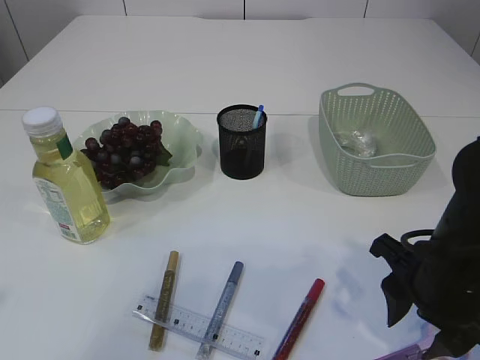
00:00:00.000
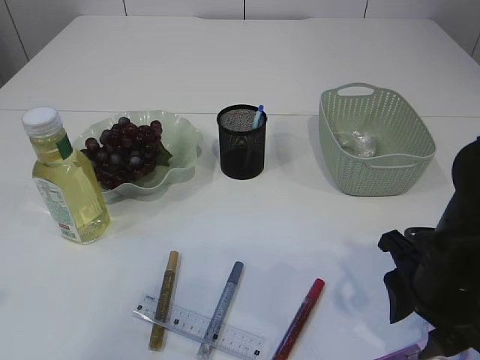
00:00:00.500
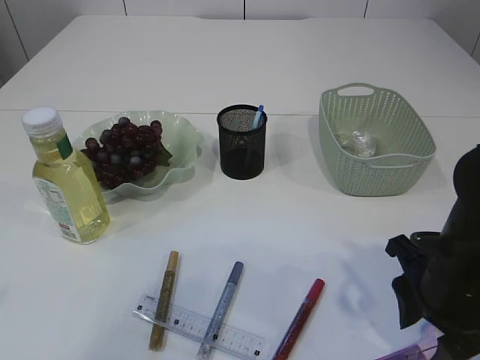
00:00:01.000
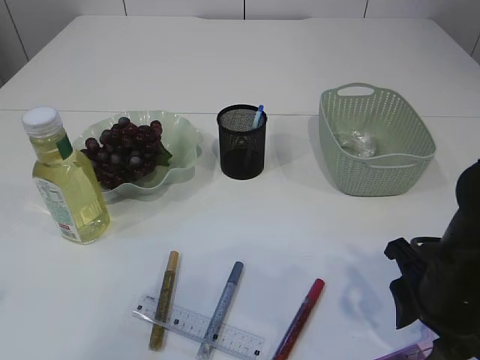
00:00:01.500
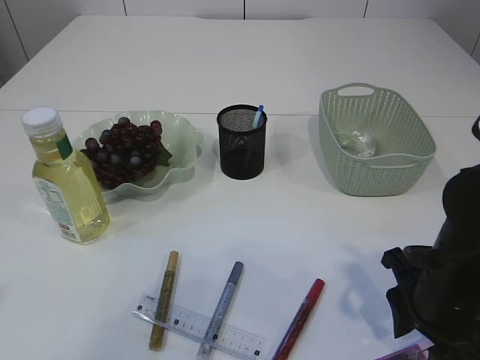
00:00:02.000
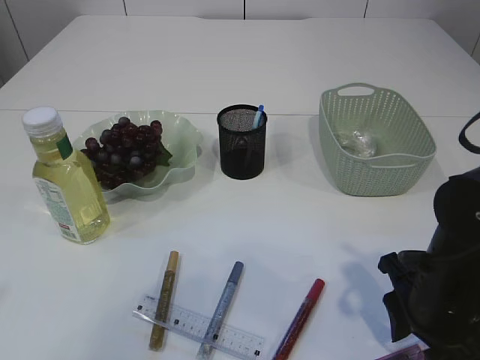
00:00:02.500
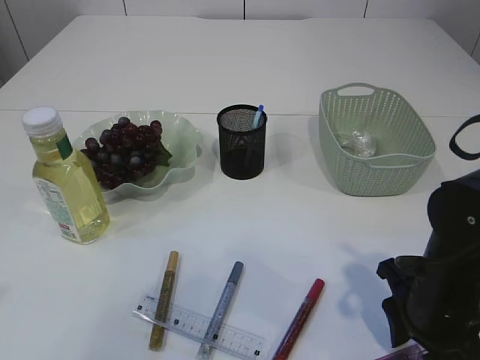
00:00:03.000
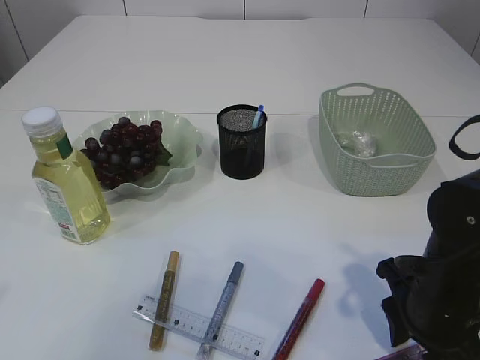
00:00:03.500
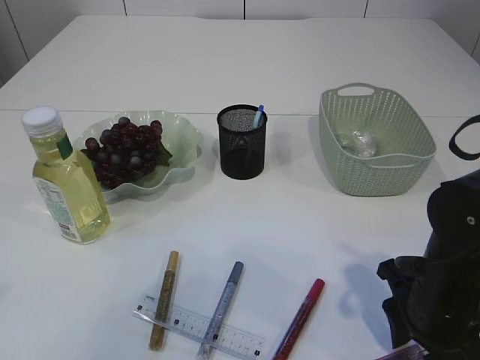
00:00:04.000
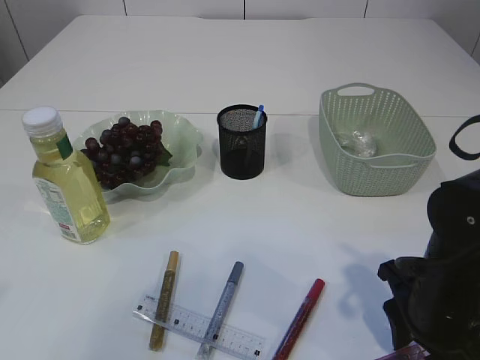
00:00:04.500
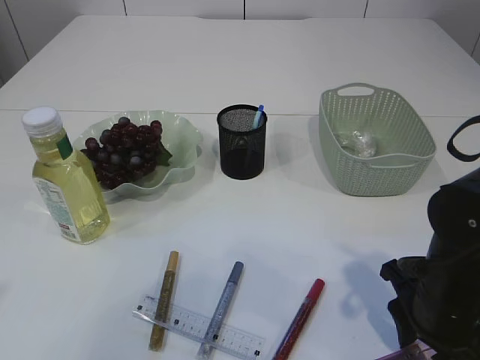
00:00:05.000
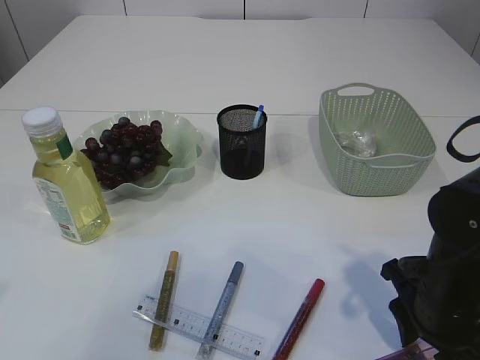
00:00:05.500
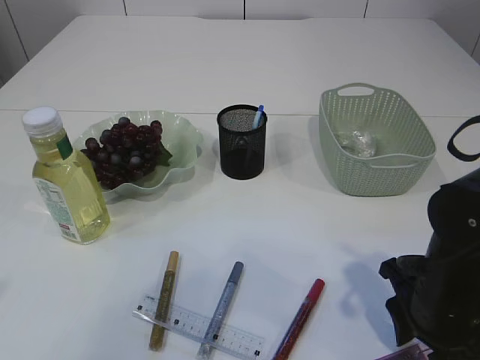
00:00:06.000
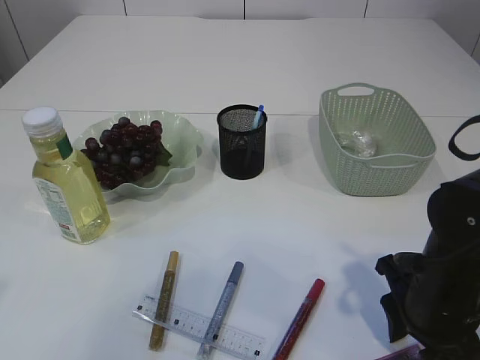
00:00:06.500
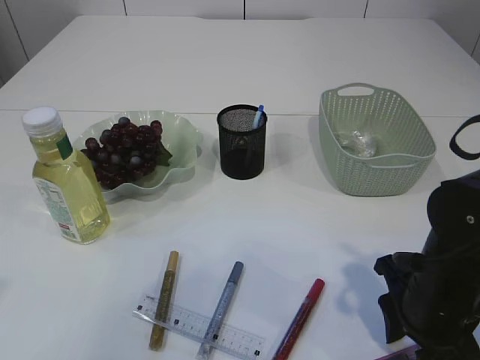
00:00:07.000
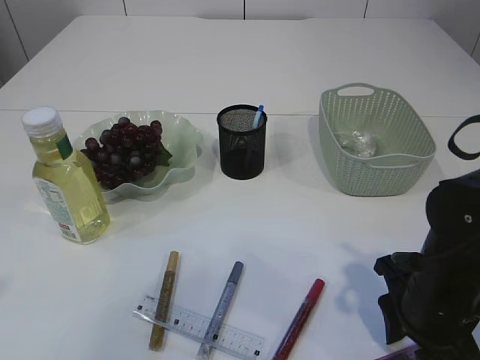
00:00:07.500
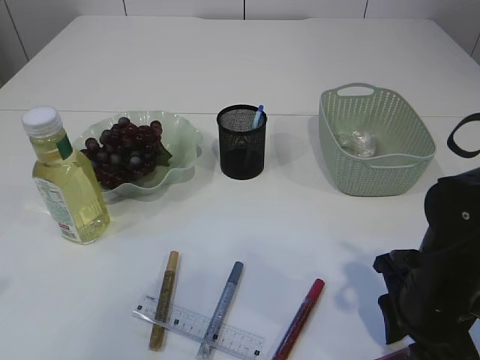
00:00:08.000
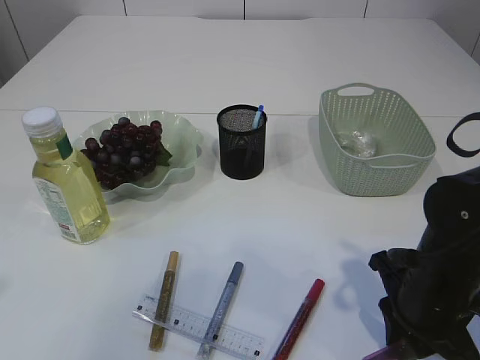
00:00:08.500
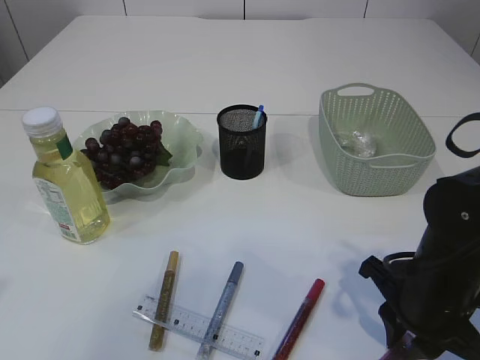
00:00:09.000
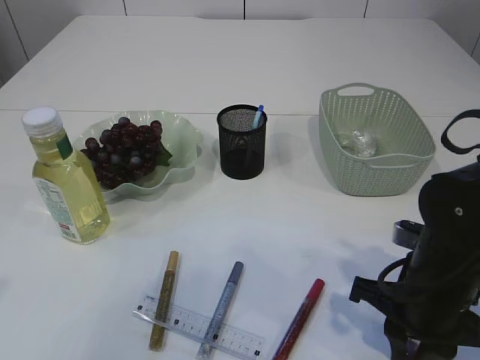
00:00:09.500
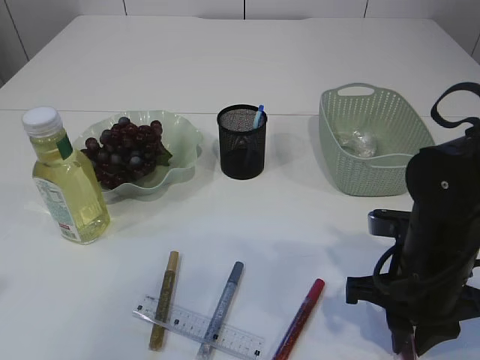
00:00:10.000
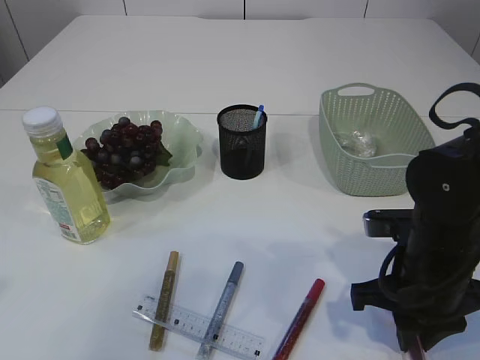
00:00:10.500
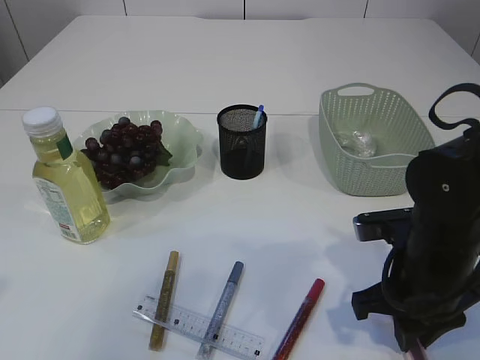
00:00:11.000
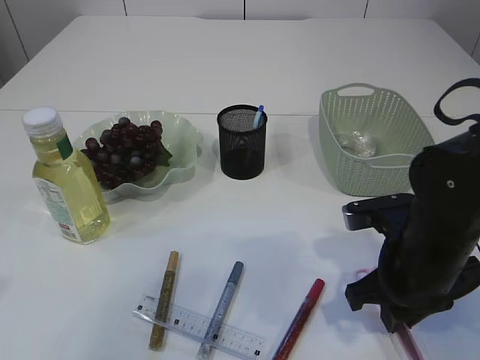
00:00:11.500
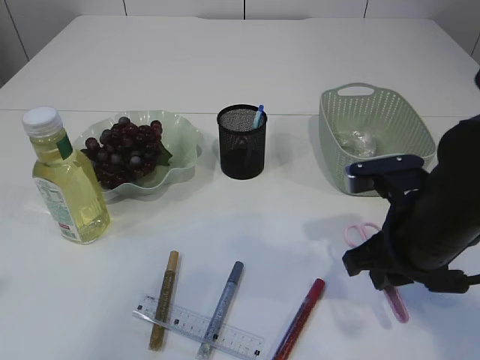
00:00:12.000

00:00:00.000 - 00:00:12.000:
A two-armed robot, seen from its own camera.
00:00:00.000 - 00:00:04.000: The grippers move only a little.
00:00:06.000 - 00:00:08.000: The grippers make only small movements.

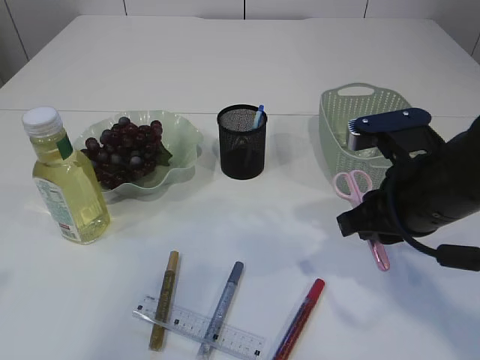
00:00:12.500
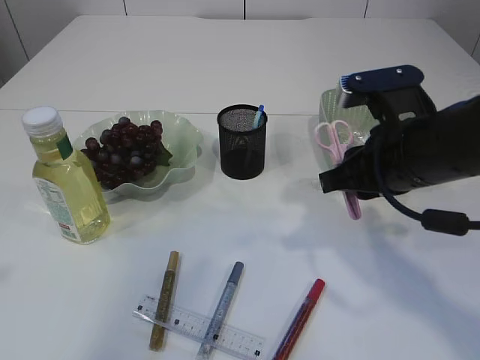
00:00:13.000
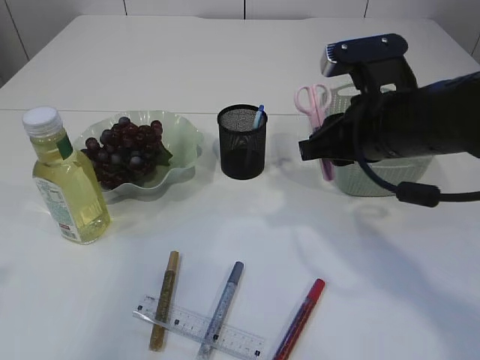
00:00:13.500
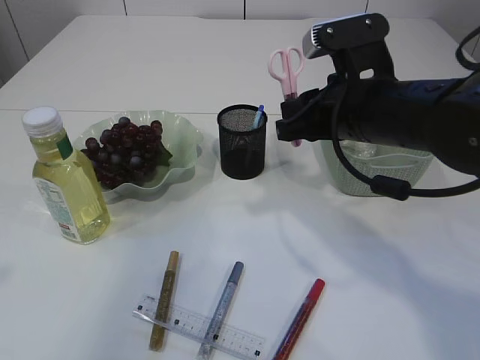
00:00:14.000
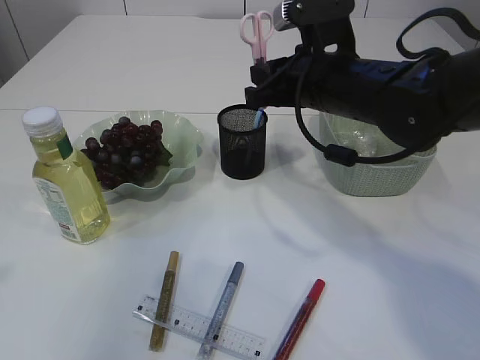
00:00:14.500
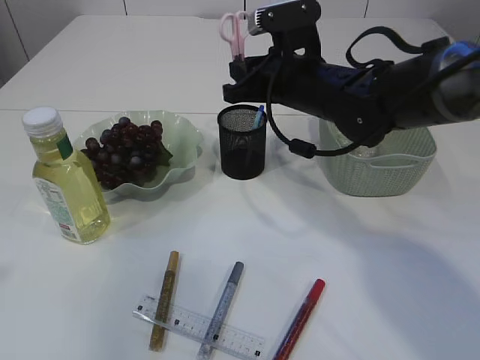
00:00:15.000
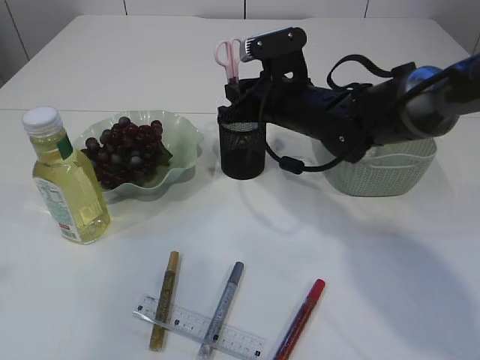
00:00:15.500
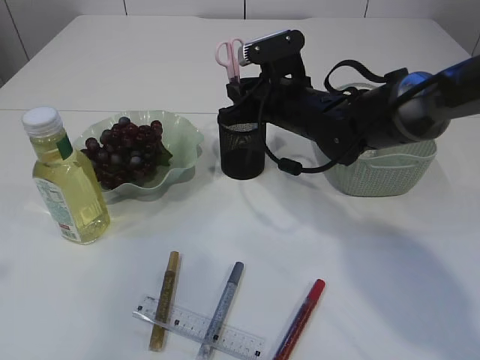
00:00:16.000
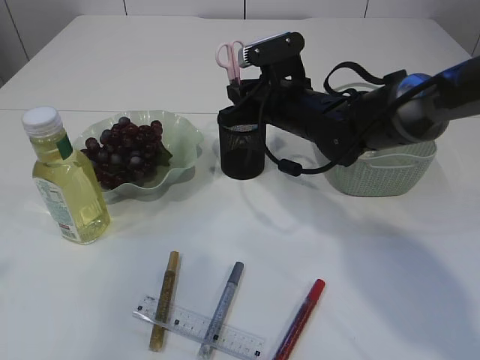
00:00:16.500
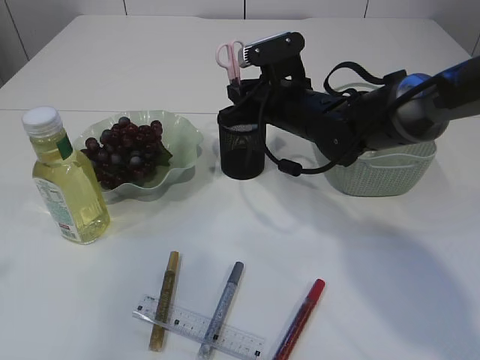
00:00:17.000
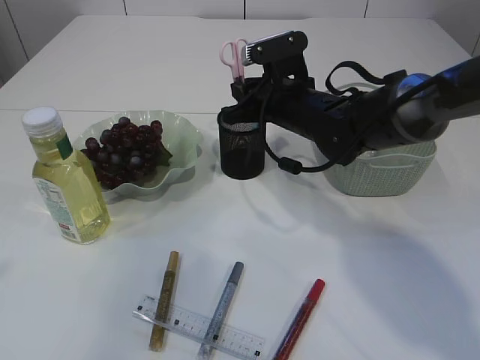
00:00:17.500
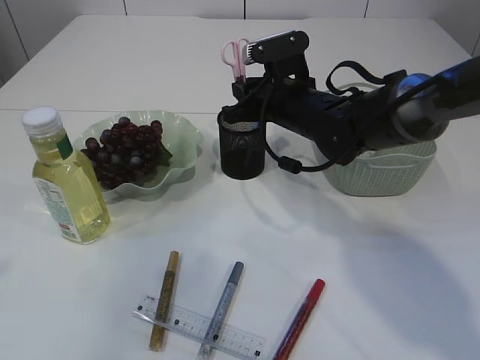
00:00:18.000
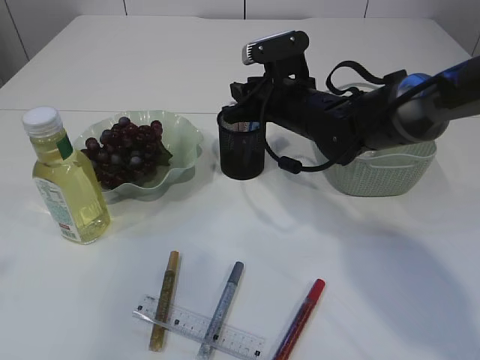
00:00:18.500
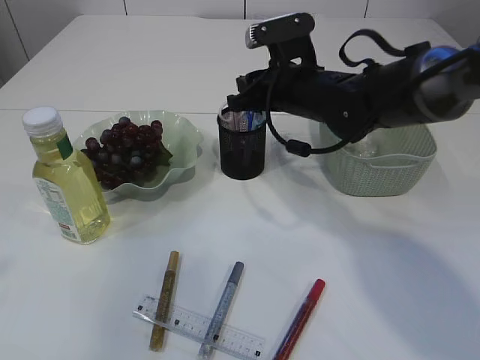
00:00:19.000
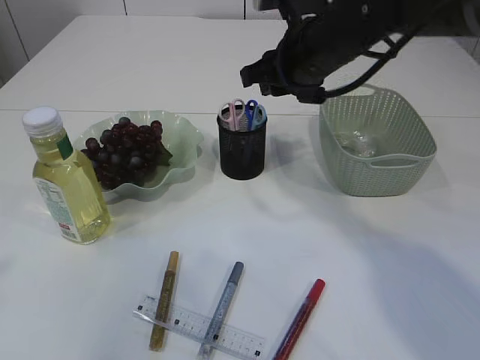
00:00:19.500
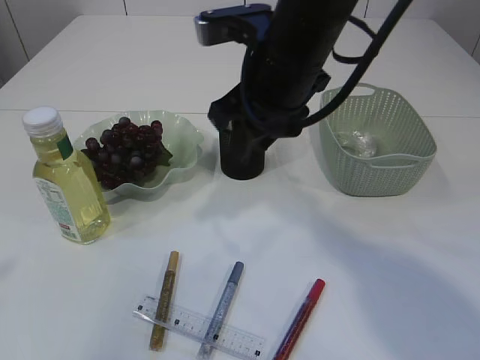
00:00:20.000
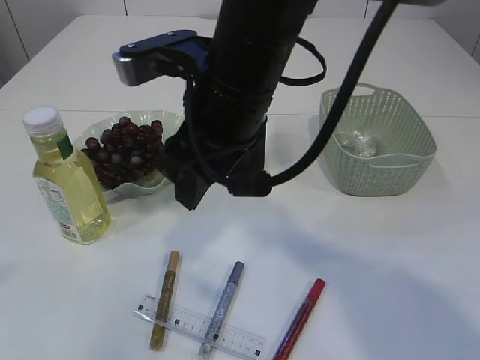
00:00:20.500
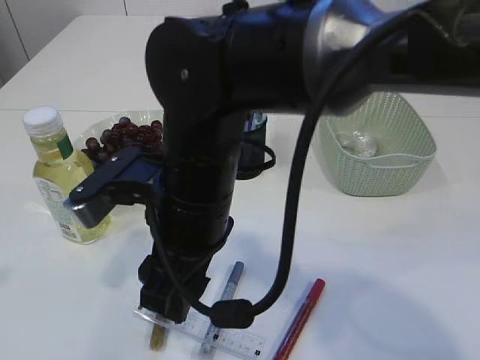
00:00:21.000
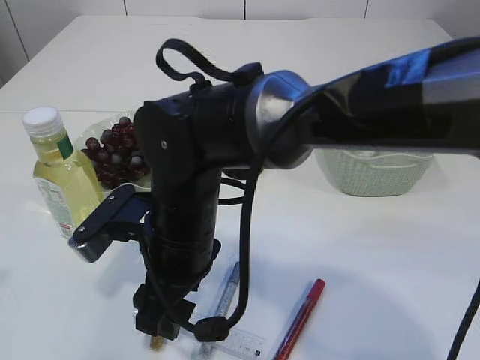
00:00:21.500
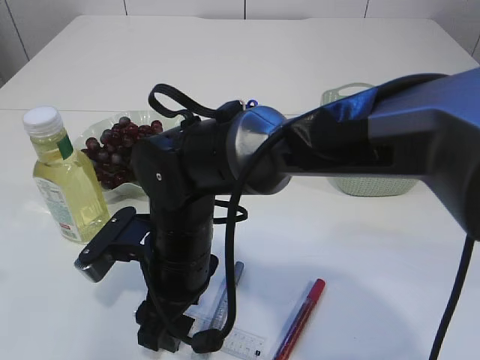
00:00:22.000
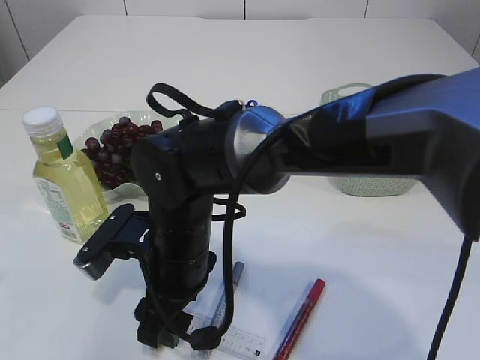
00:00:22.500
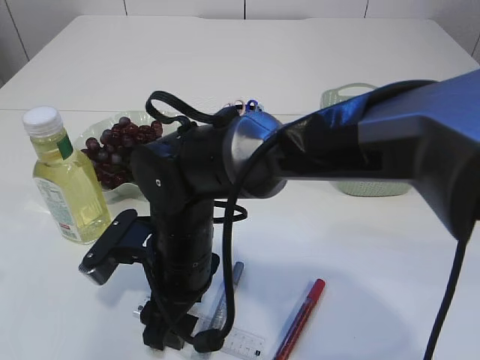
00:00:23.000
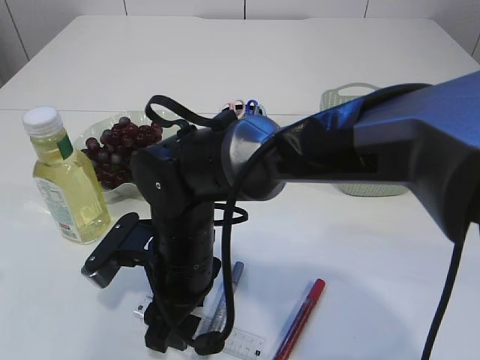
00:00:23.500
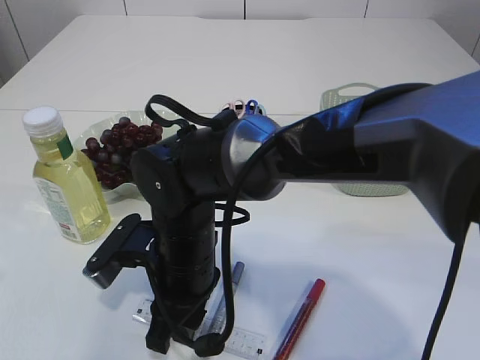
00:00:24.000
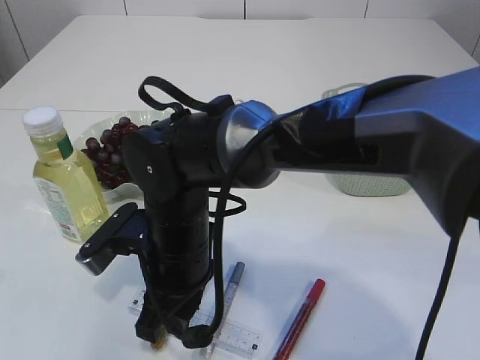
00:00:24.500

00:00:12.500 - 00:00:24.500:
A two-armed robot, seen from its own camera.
Step, 00:00:13.000 - 00:00:19.000: Place the pink scissors into the pen holder.
00:00:12.500 - 00:00:14.500: The right gripper travels forward and to the left by roughly 15 cm.
00:00:14.500 - 00:00:16.500: The right gripper heads forward and downward, covering approximately 10 cm.
00:00:16.500 - 00:00:18.500: Both grippers stay about where they are.
00:00:18.500 - 00:00:20.500: The right gripper heads backward, upward and to the left, covering roughly 20 cm.
00:00:20.500 - 00:00:22.500: The right gripper moves downward and to the left, some 15 cm.
00:00:22.500 - 00:00:24.500: The right gripper closes up.

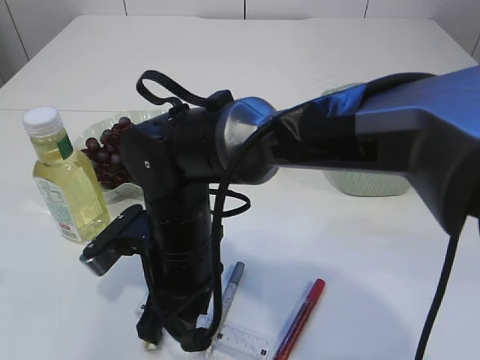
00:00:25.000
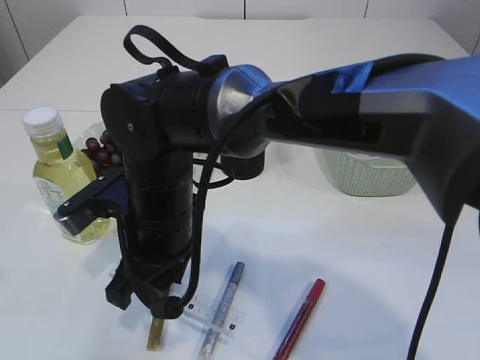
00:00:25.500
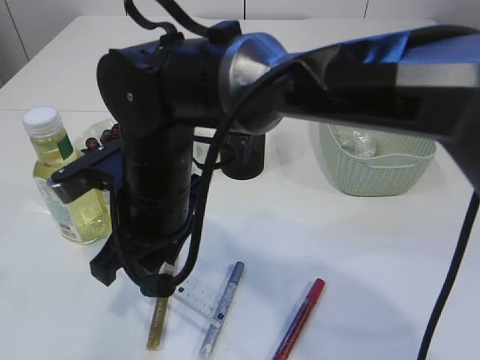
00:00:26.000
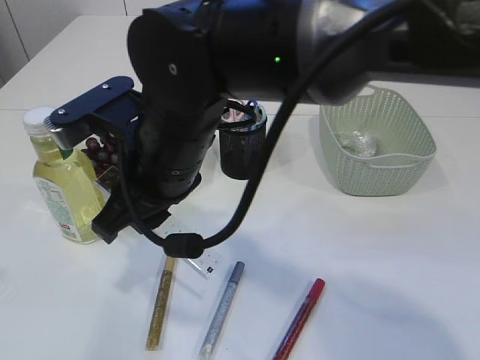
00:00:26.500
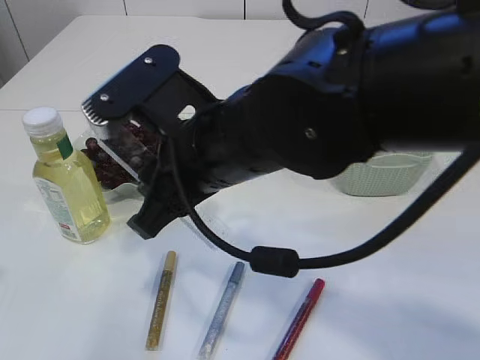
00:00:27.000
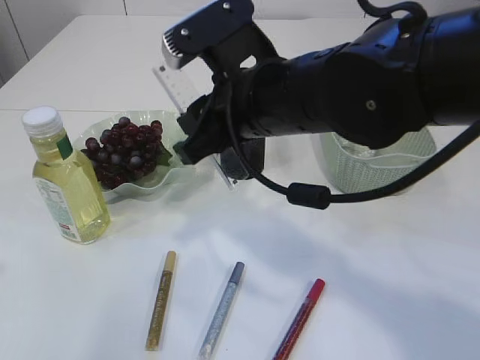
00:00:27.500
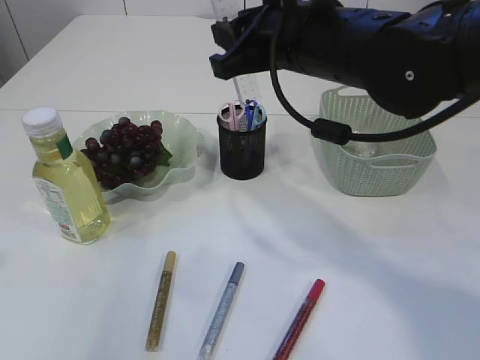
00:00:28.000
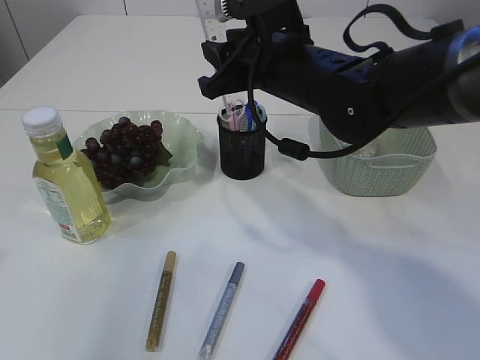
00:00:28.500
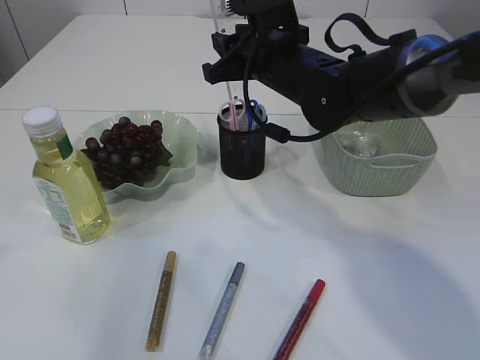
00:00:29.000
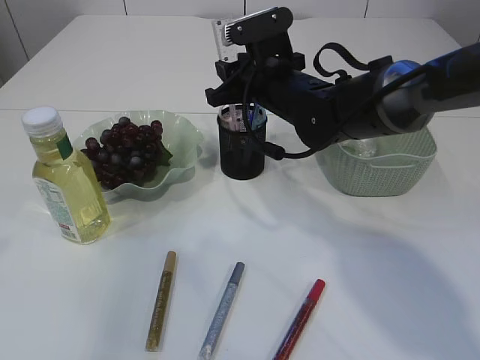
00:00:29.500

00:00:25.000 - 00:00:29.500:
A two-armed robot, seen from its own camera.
00:00:25.000 - 00:00:27.000: The right gripper heads upward, covering about 10 cm.
00:00:27.000 - 00:00:29.500: The right gripper travels forward and to the right by approximately 20 cm.
